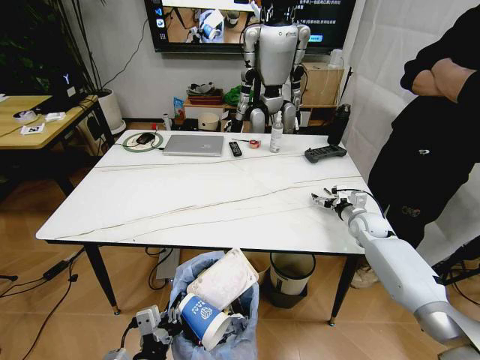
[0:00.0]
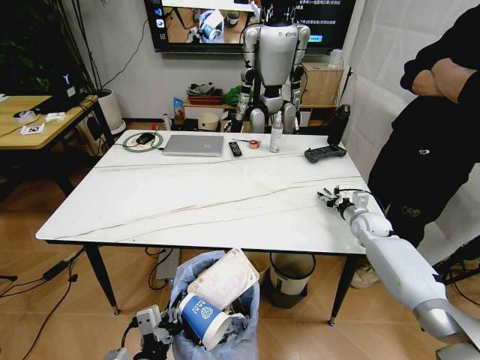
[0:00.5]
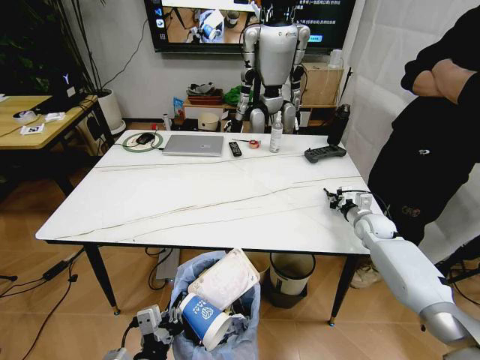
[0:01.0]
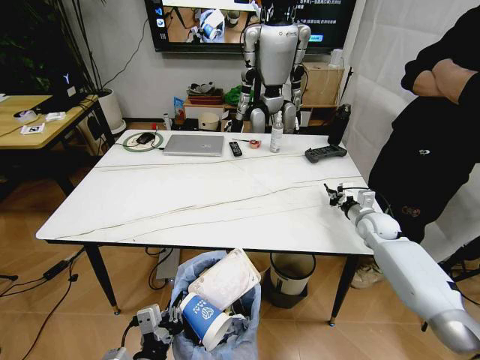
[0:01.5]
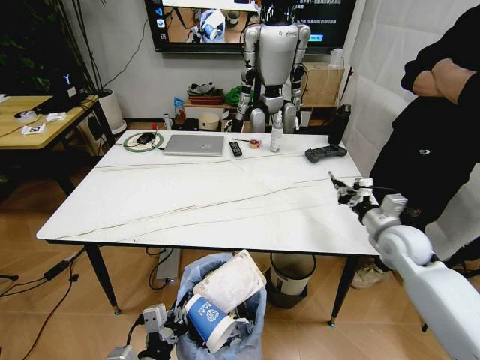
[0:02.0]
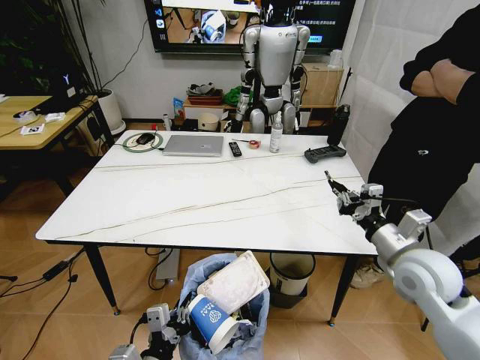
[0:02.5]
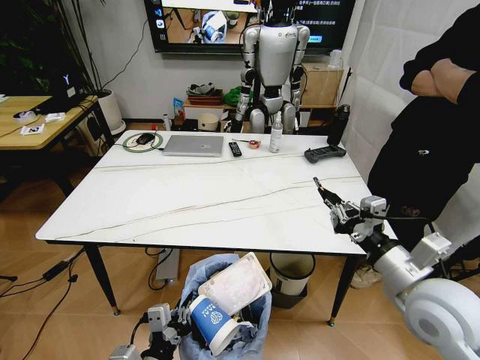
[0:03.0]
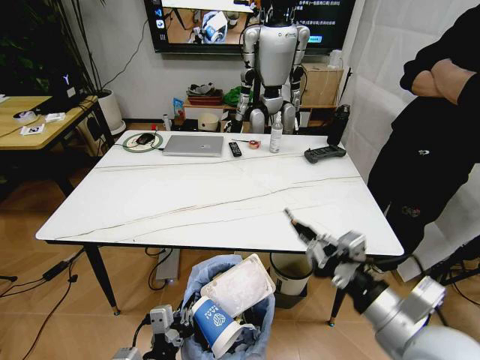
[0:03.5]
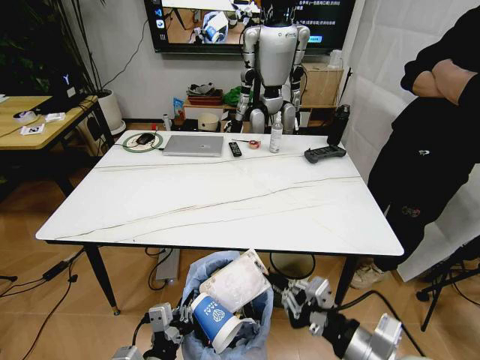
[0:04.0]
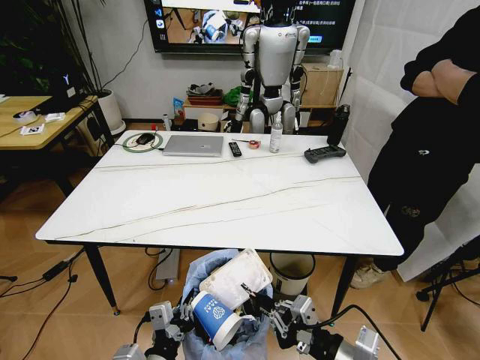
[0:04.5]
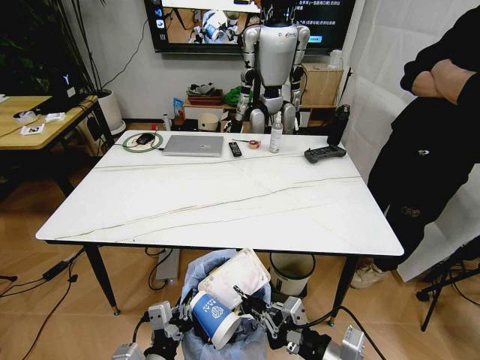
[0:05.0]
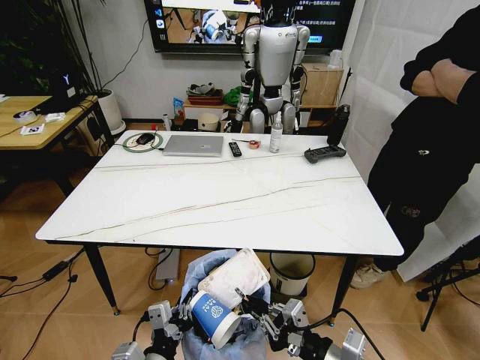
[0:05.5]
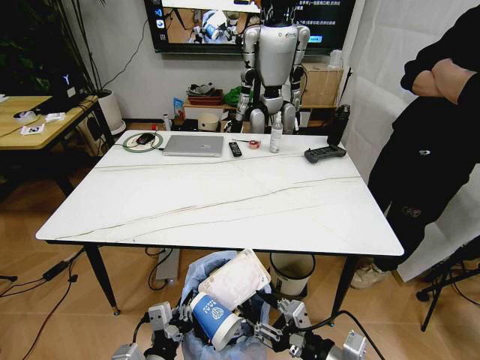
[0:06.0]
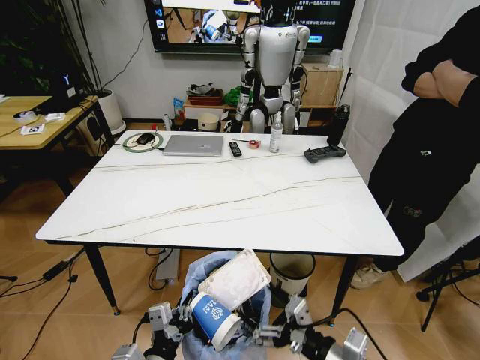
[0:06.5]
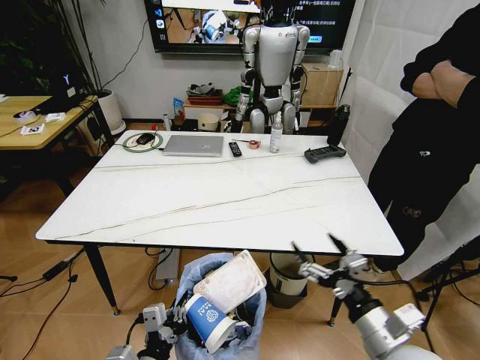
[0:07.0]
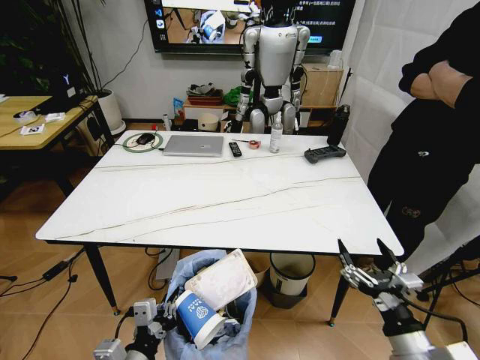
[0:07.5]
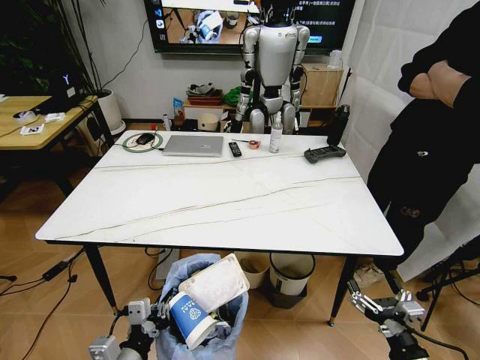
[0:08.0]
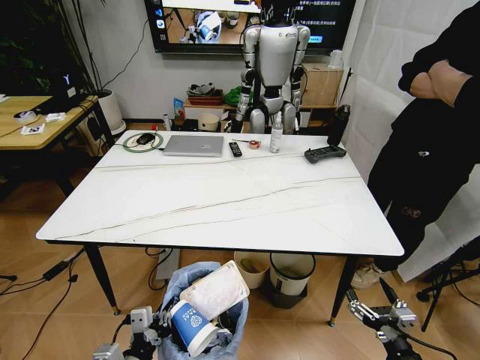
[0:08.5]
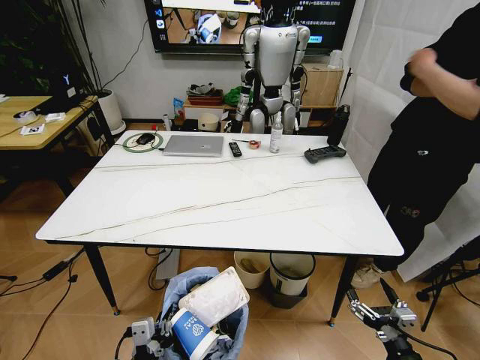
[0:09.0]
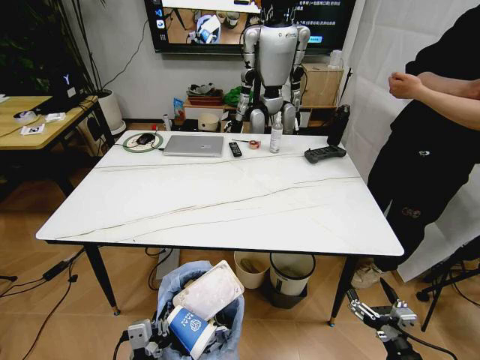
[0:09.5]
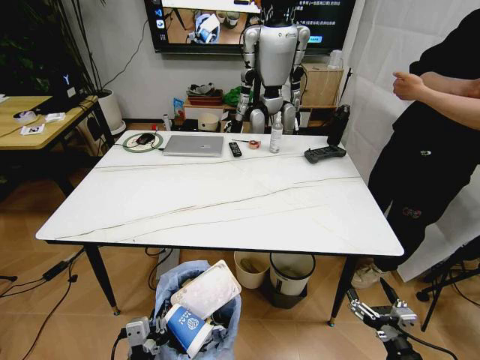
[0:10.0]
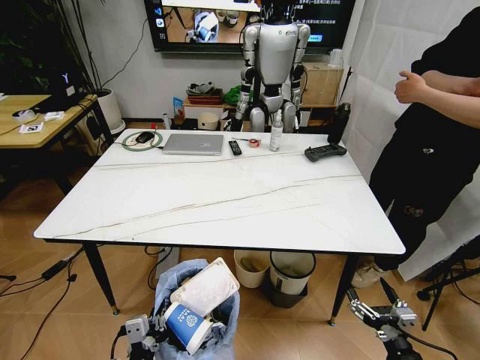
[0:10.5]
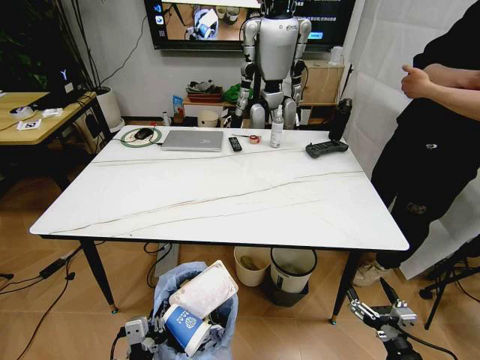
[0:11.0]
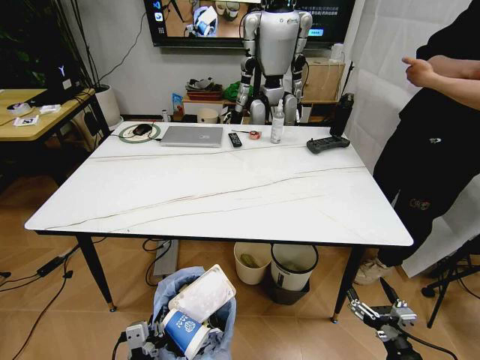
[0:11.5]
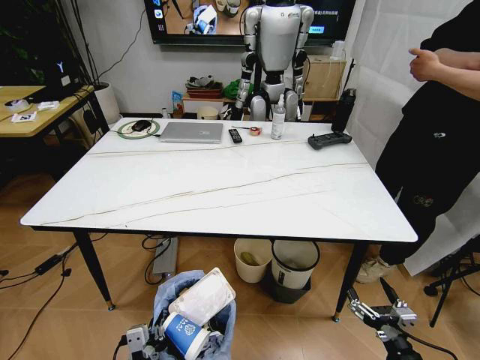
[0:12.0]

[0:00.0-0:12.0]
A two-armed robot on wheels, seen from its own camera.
Task of the whole recording: Pick up the trash bin and place the trash from the table into it.
0:00.0 to 0:02.0: The right gripper heads backward and upward, covering some 15 cm, and closes its fingers.
0:02.0 to 0:04.0: The right gripper goes about 30 cm backward and to the left.
0:04.0 to 0:06.0: The right gripper travels downward by some 5 cm, and opens up.
0:06.0 to 0:08.0: The right gripper is displaced to the right and downward by approximately 15 cm, and opens its fingers. The left gripper heads to the left, covering about 5 cm.
0:08.0 to 0:10.0: The left gripper ends up some 5 cm from where it was.

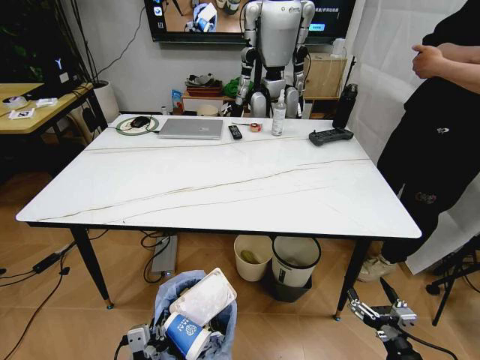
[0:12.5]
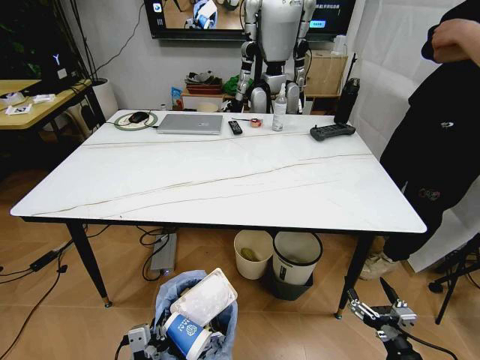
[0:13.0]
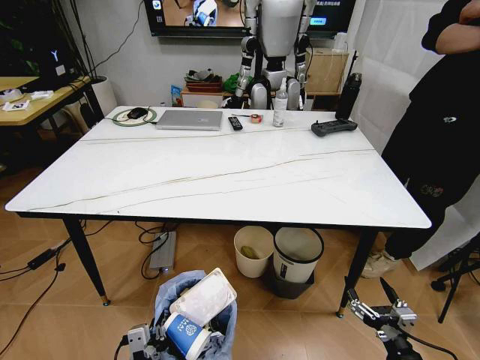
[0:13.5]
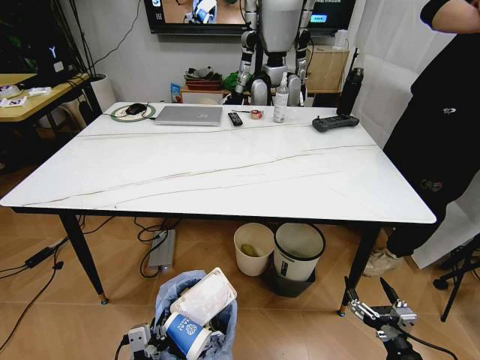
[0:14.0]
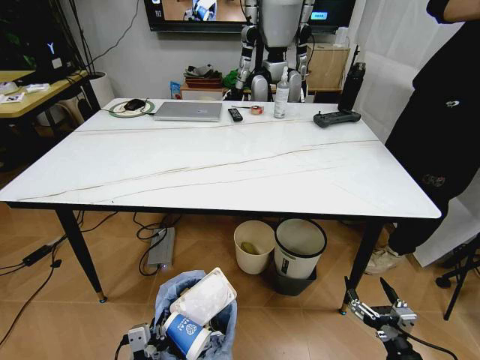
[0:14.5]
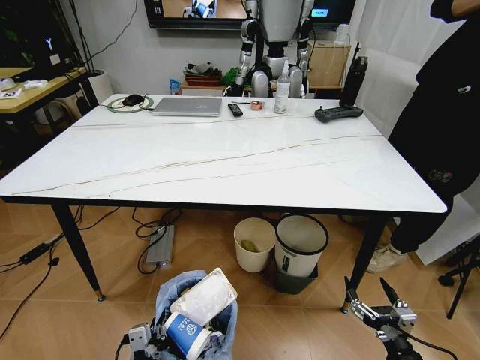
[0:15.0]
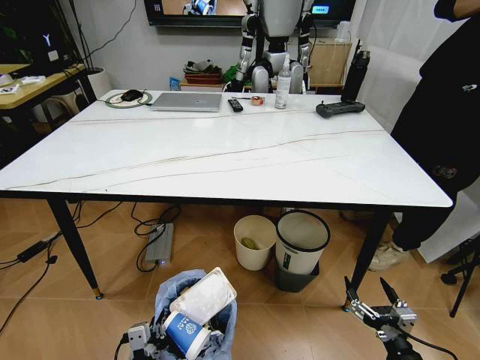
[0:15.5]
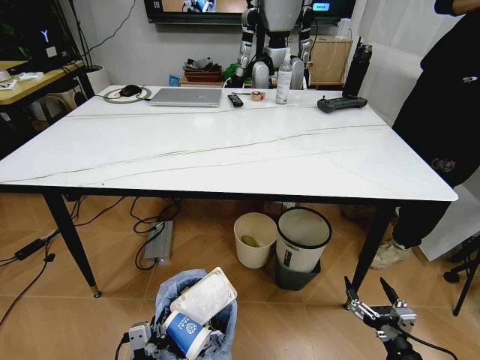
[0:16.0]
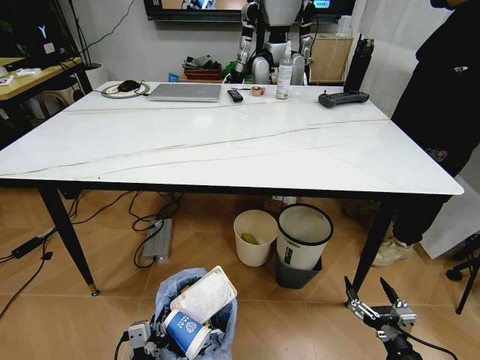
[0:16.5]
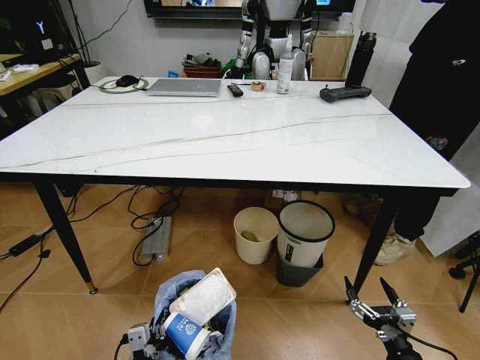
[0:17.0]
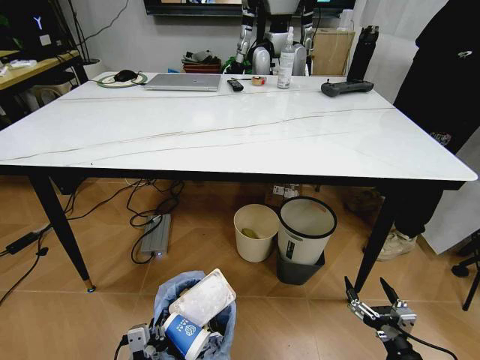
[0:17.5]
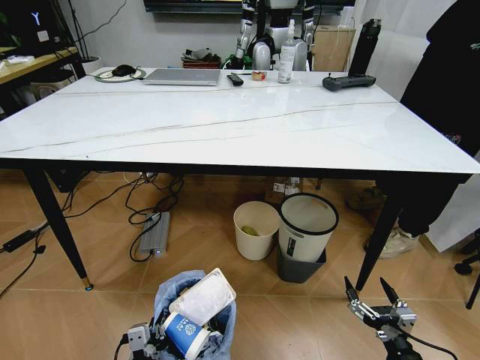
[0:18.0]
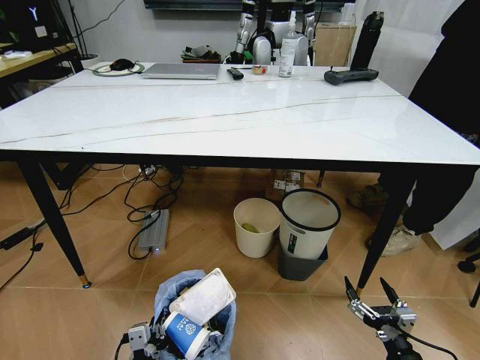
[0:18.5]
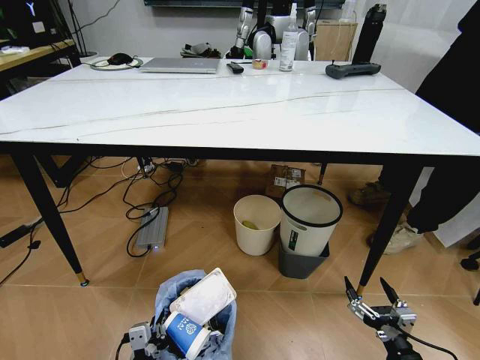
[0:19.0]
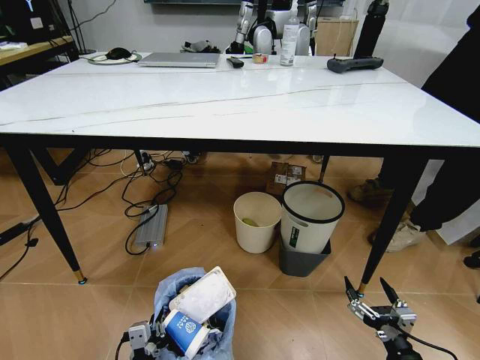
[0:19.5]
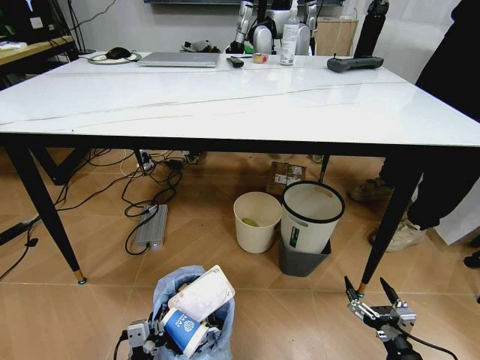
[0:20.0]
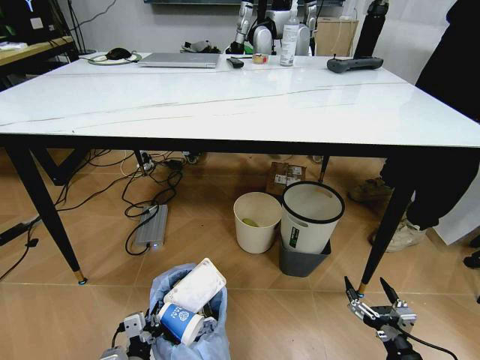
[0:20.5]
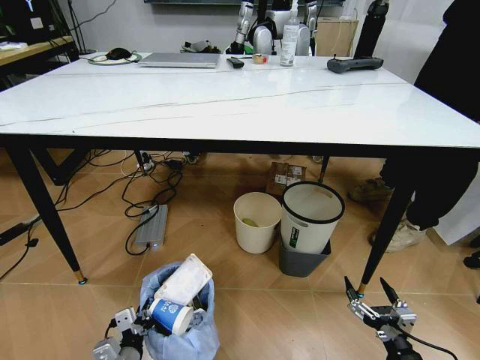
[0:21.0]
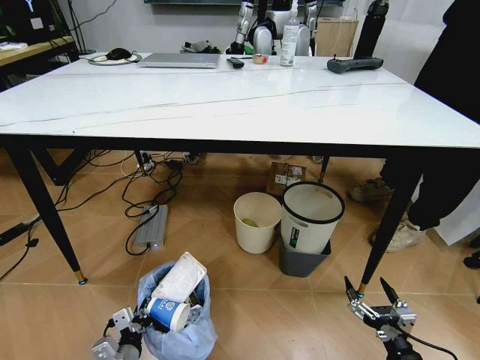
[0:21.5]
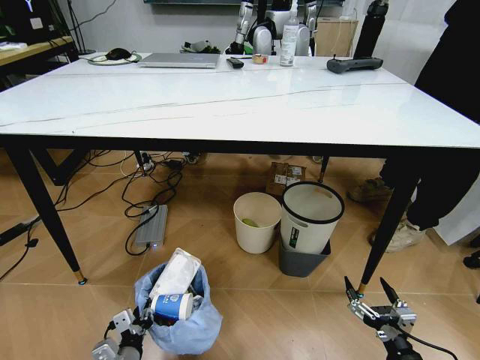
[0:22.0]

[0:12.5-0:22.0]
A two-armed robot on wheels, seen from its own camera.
Task of the whole recording: Pick up the trash bin and place the trash from the table into it.
0:20.0 to 0:22.0: The left gripper goes about 5 cm forward.

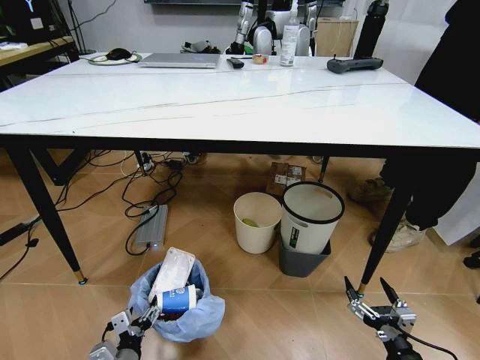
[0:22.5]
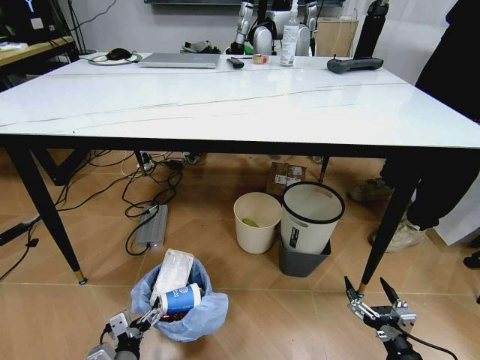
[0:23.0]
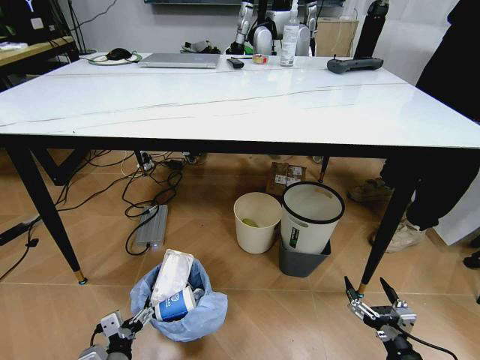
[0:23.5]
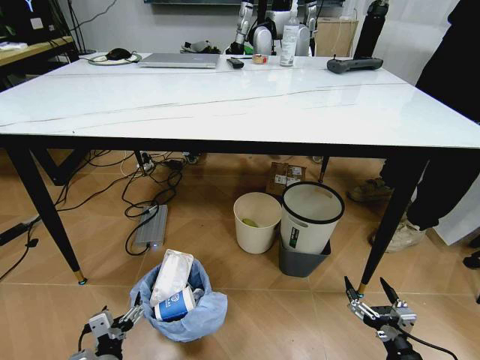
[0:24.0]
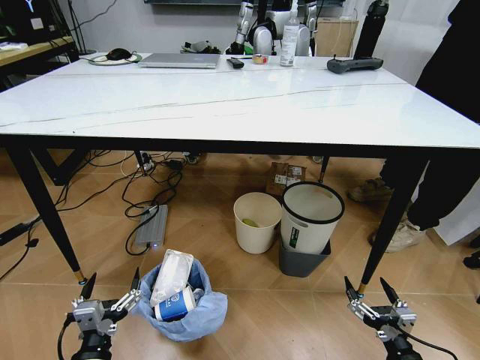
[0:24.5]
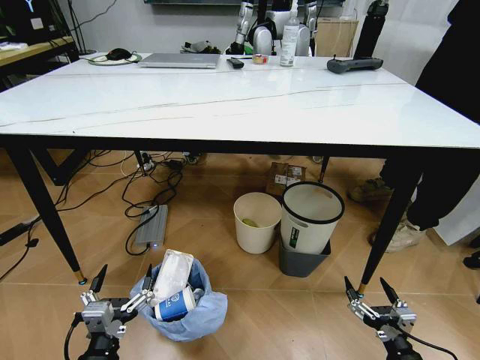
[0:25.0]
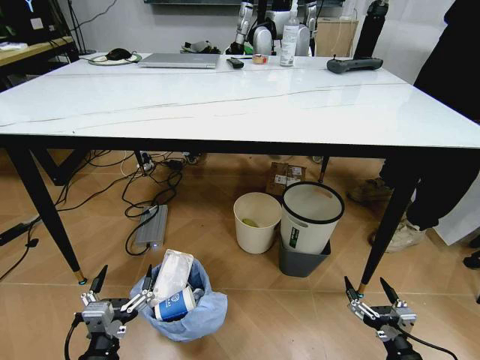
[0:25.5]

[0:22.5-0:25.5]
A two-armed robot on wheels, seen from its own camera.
Task of the whole recording: Pick up the trash bin and place the trash from the table into it.
0:22.5 to 0:24.0: The grippers make only small movements.
0:24.0 to 0:25.5: The left gripper goes some 10 cm upward.
